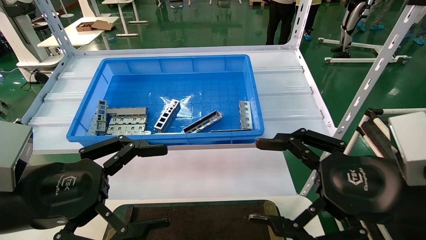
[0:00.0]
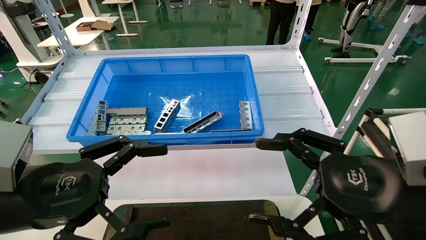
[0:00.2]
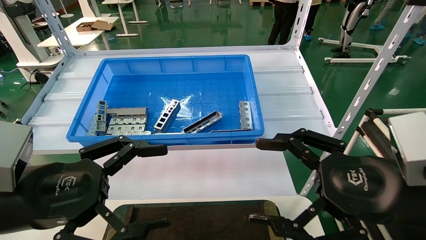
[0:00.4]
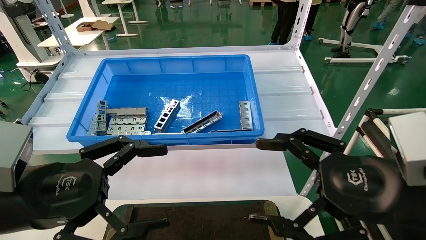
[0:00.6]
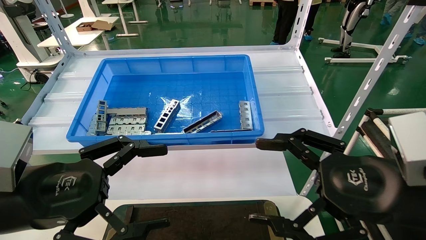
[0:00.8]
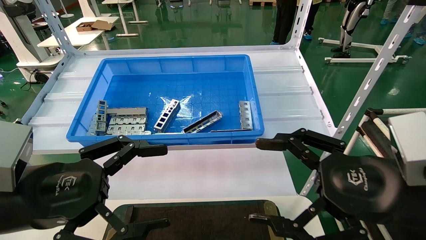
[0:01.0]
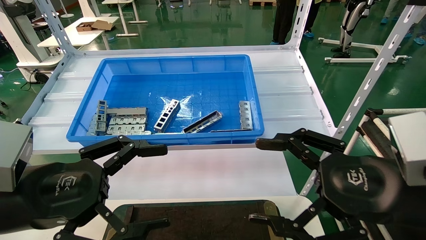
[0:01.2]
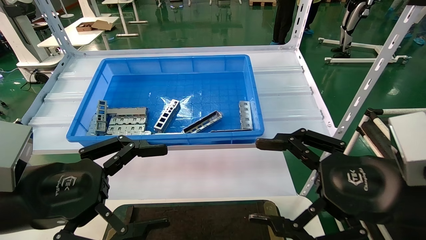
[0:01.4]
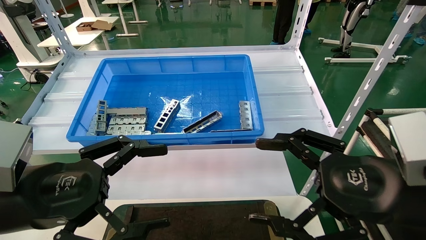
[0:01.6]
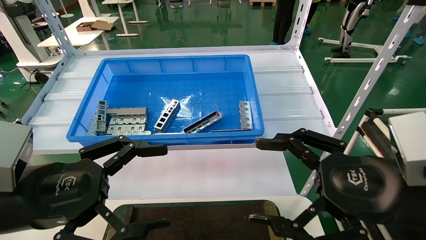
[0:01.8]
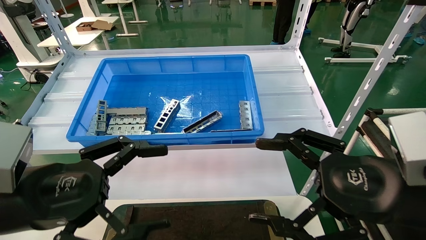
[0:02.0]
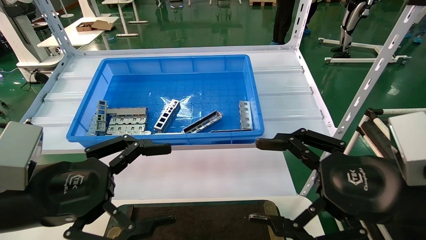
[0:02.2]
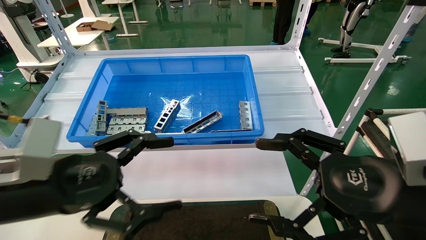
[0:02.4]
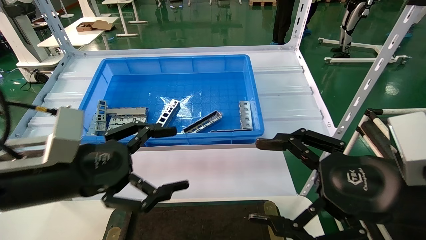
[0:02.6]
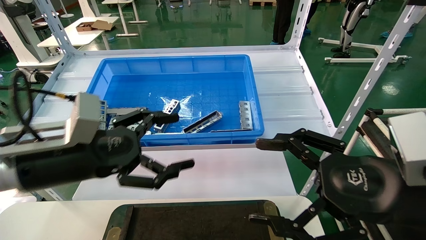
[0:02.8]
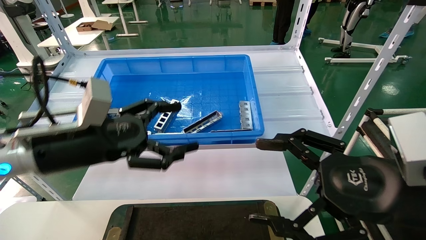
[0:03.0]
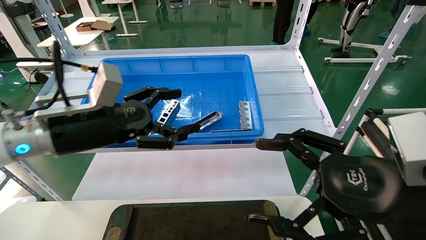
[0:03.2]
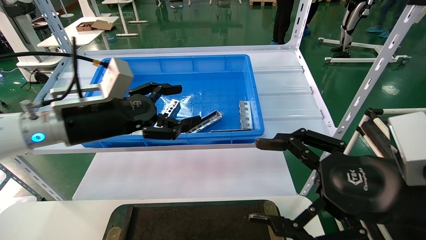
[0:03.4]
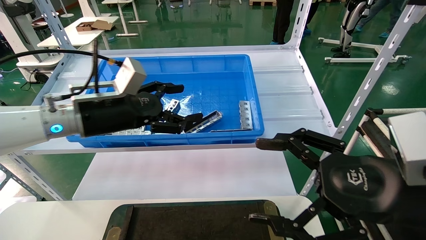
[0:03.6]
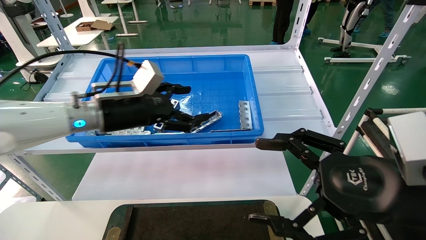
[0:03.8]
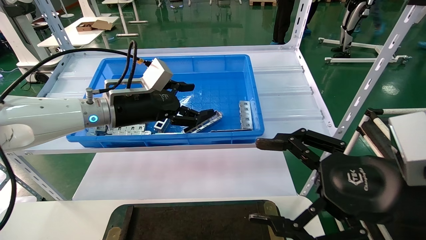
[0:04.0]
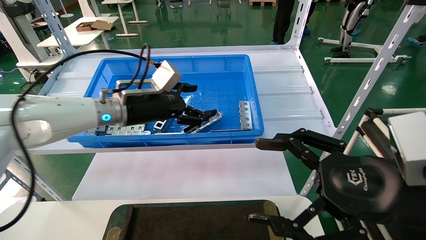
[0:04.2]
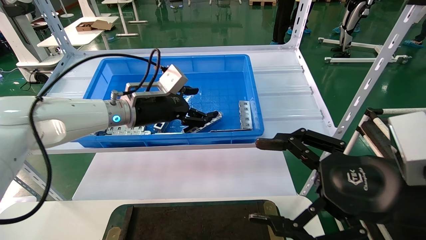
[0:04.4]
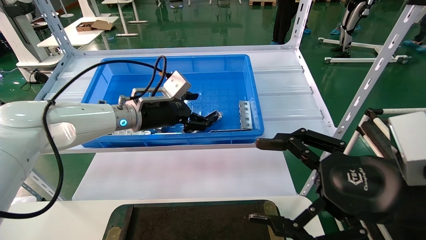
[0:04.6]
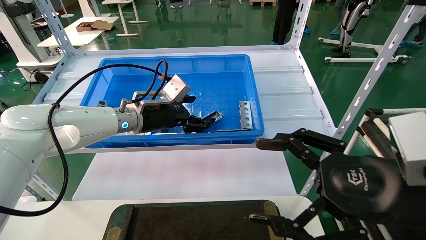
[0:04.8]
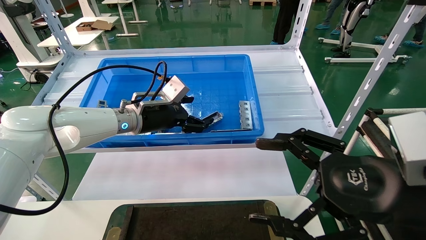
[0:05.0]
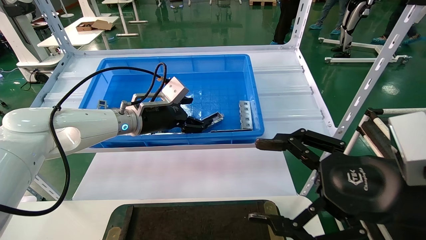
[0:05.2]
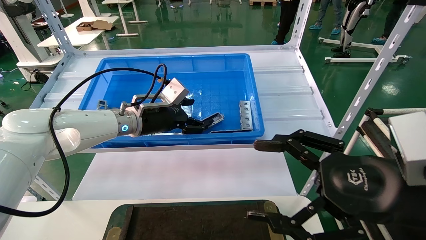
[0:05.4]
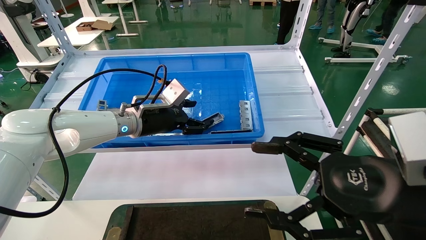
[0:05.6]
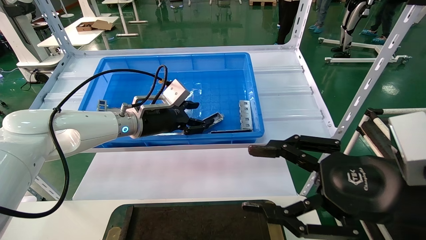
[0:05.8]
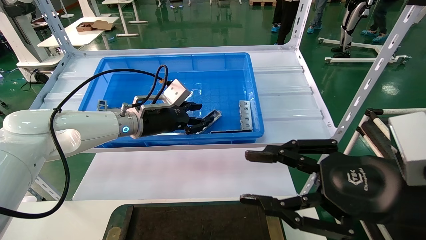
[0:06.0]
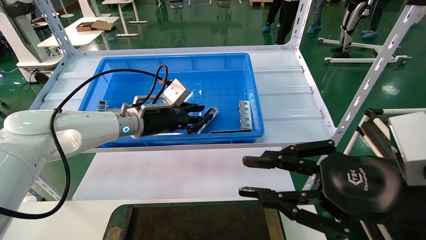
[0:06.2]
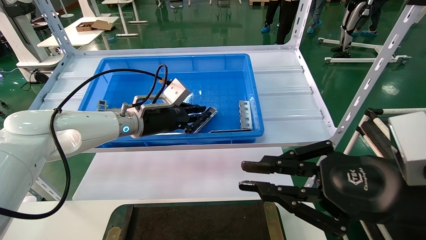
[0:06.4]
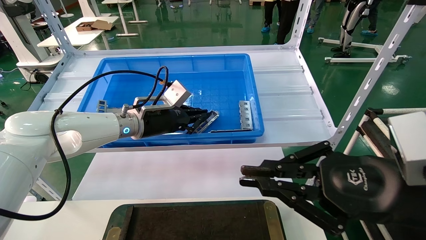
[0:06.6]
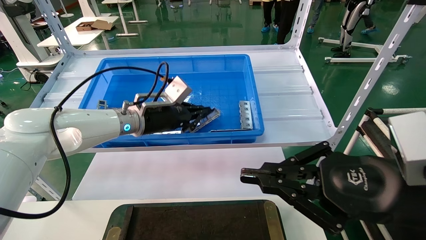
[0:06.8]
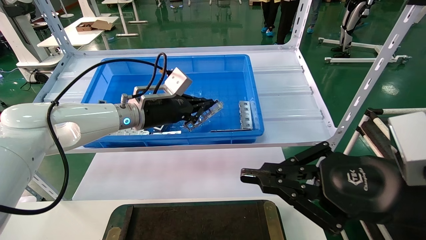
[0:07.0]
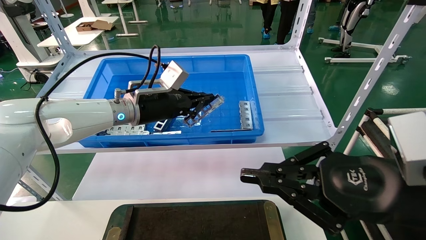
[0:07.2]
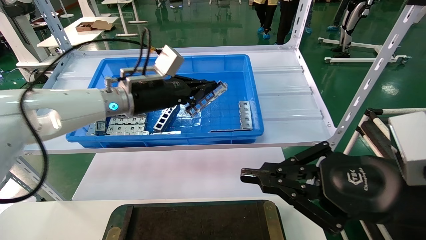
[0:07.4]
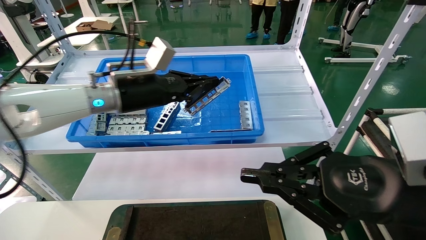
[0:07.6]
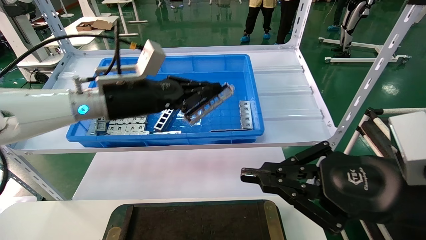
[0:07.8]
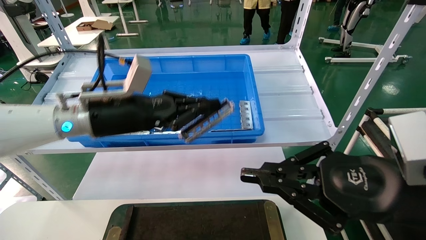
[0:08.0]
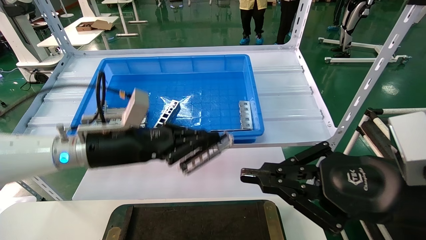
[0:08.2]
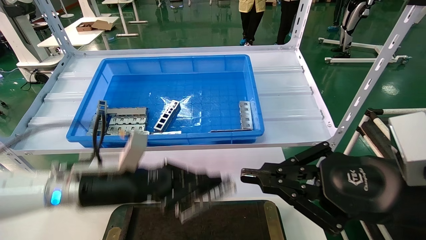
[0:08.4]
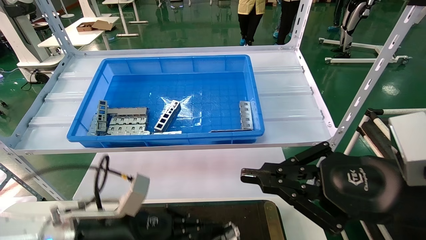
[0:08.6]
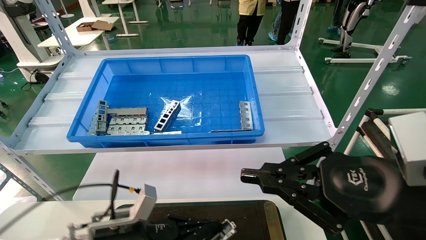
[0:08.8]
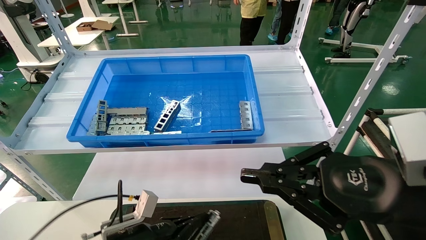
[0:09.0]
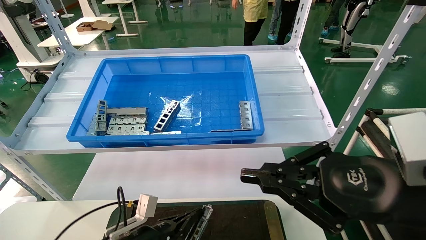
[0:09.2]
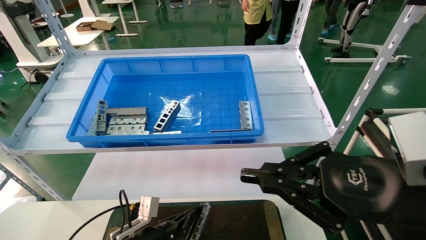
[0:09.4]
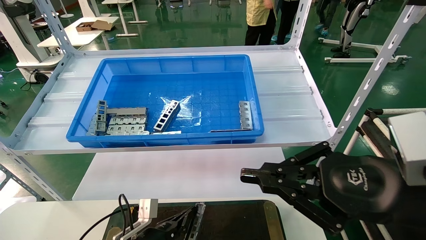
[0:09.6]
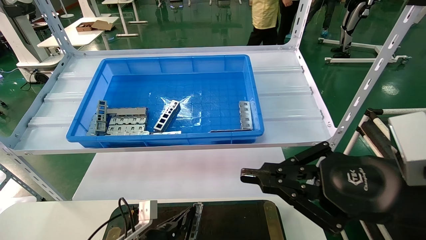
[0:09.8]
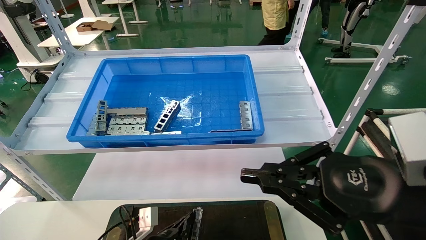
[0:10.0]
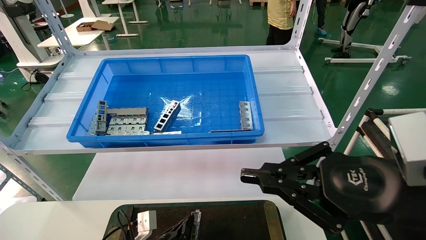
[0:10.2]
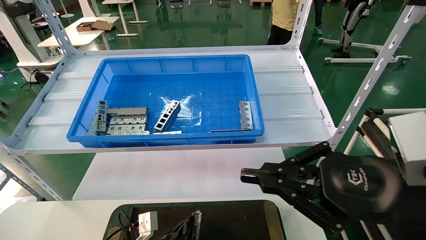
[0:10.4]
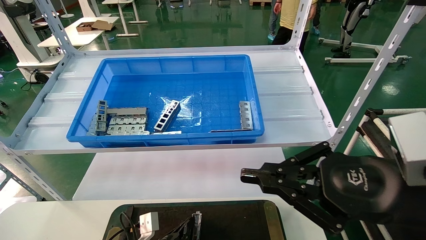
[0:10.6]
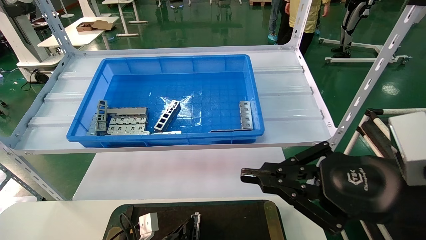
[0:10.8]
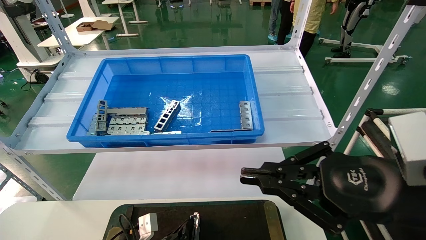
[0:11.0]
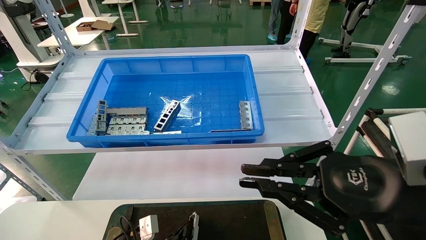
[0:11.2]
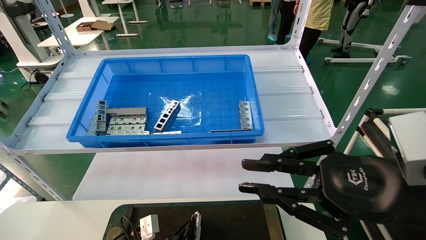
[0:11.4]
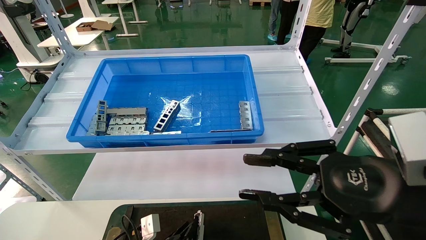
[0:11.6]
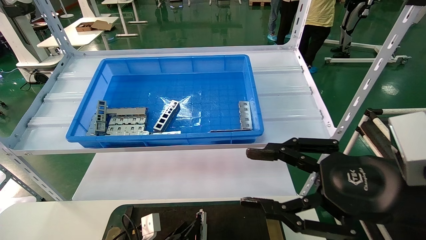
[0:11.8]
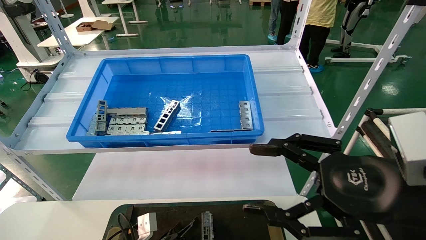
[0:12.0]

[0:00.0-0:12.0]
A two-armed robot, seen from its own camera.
Task of the whole recording: Grasp the part with one hand and place it on the black container.
Step, 0:02.4 to 0:07.4: Pick up the front USB bracket from the feeding area.
0:00.0 to 0:01.6: Neither gripper changes place.
0:01.6 to 0:03.0: The left gripper heads forward, covering roughly 10 cm.
0:03.0 to 0:04.4: The left gripper travels forward by approximately 15 cm.
0:04.4 to 0:06.0: The right gripper closes its fingers. The left gripper closes.
0:06.0 to 0:07.6: The left gripper heads upward and backward, covering approximately 10 cm, and closes its fingers, while the right gripper closes.
0:07.6 to 0:09.0: The left gripper moves downward, some 30 cm.
0:09.0 to 0:10.4: The left gripper moves downward, about 10 cm.
0:10.4 to 0:12.0: The right gripper opens up. Meanwhile the left gripper opens.

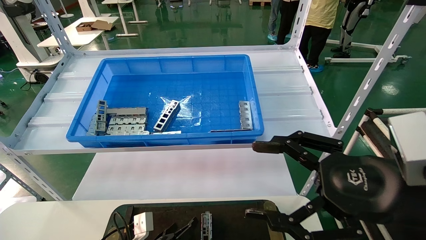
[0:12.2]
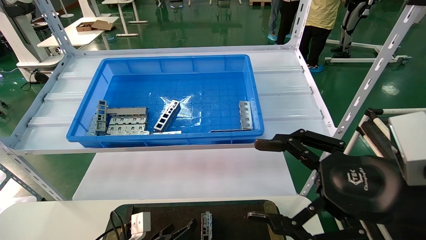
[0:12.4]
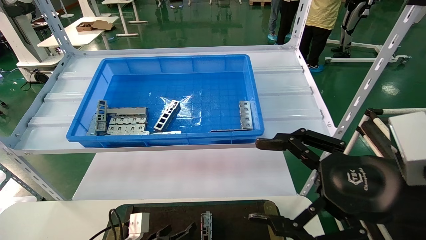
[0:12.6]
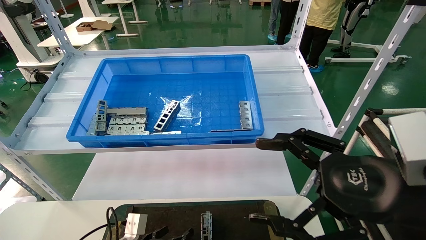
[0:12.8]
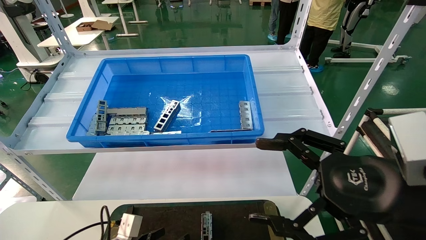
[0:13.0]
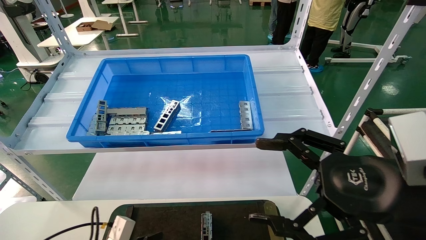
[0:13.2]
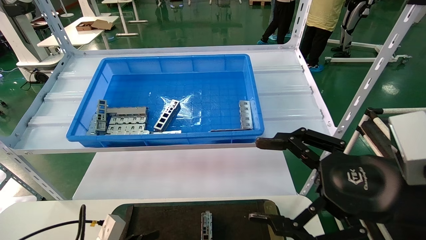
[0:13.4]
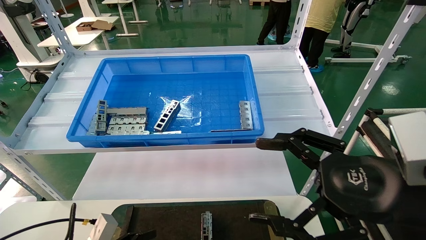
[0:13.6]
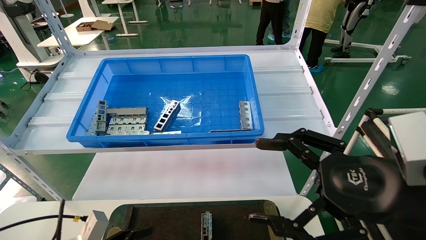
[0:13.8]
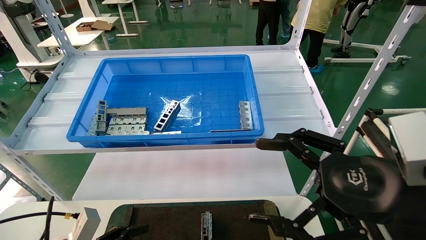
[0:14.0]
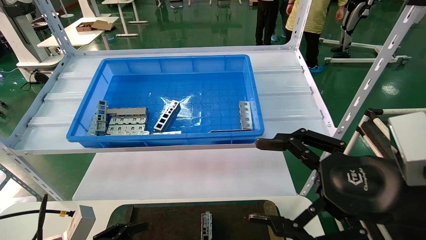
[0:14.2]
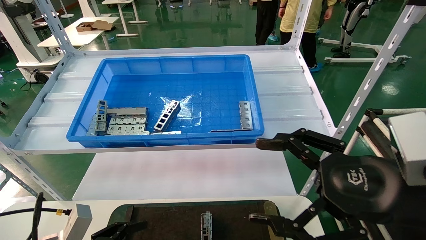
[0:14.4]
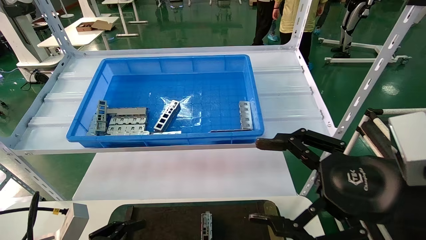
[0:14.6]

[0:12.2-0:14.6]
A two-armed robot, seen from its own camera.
Task of the whole recording: Grasp the part with one hand and place it on the black container.
0:12.2 to 0:13.4: The left gripper is displaced to the left, upward and backward by about 15 cm.
0:13.4 to 0:14.6: The left gripper moves upward, about 5 cm.
